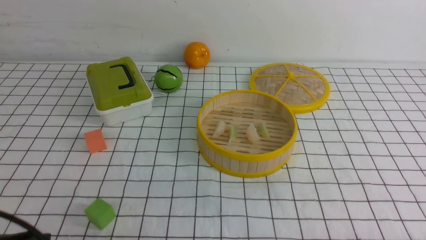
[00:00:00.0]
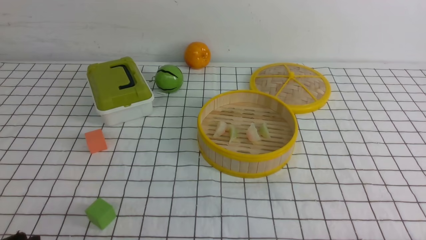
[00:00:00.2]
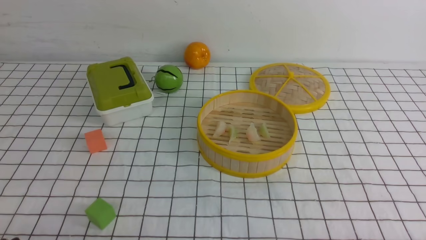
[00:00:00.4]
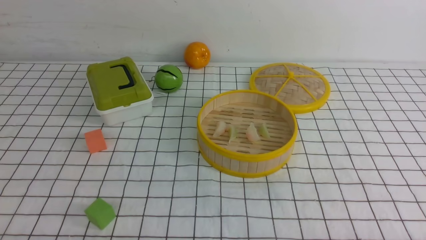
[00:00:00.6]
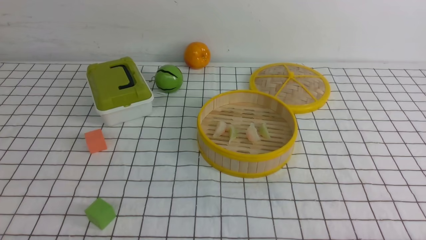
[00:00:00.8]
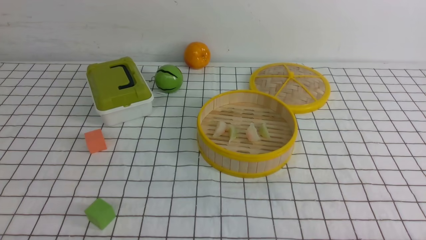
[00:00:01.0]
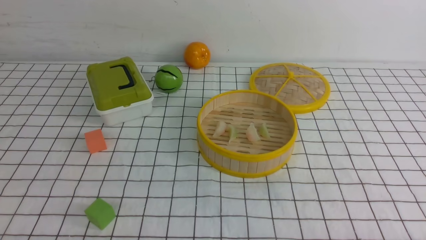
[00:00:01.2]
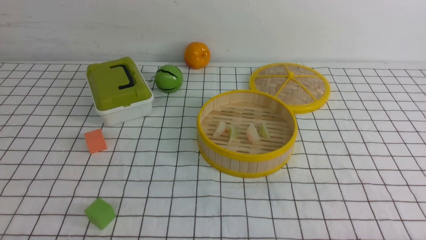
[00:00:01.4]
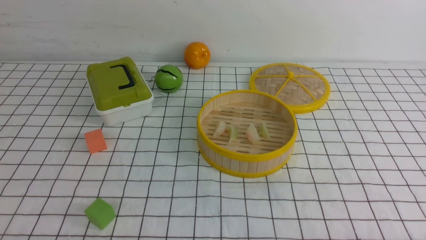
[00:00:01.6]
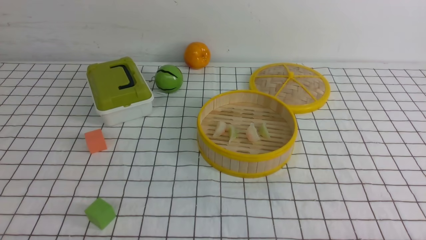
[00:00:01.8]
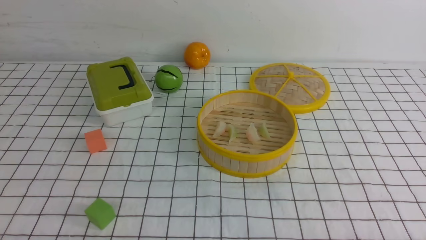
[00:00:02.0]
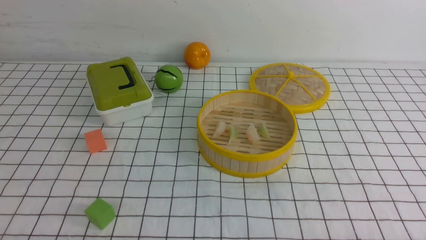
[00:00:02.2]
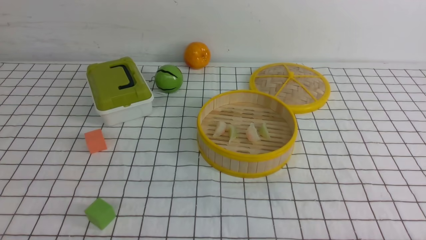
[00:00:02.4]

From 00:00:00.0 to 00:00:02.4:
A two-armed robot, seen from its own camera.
Task of the whole recording: put the dumplings into the steamer on the table with the white tablecloth.
From 00:00:00.0 to 00:00:01.2: The left gripper is displaced downward by roughly 10 cm, and closes up.
From 00:00:01.2 to 00:00:02.4: Neither gripper changes place.
